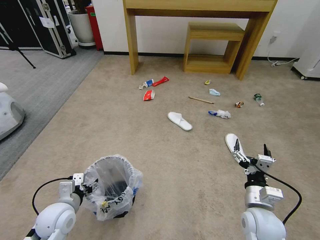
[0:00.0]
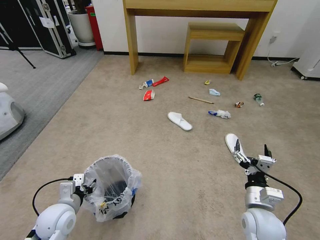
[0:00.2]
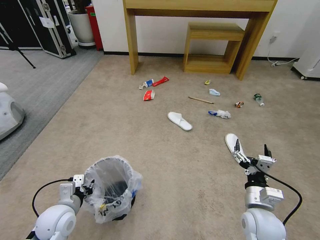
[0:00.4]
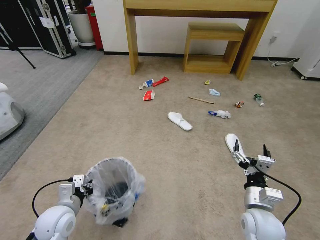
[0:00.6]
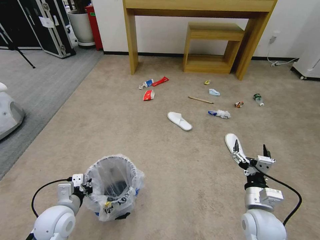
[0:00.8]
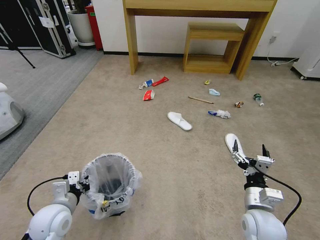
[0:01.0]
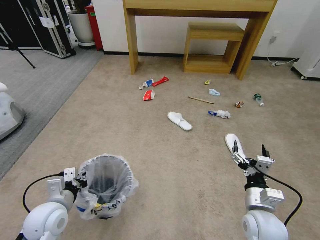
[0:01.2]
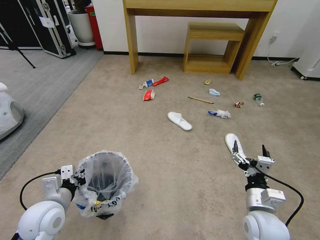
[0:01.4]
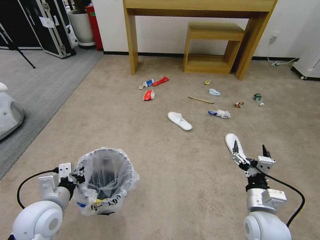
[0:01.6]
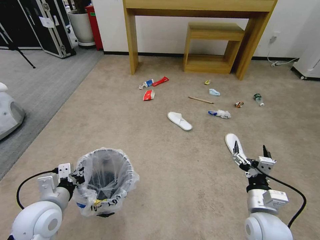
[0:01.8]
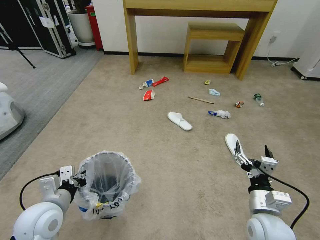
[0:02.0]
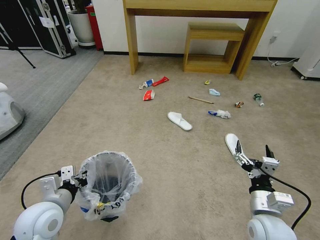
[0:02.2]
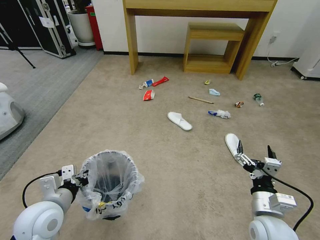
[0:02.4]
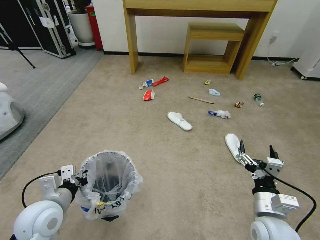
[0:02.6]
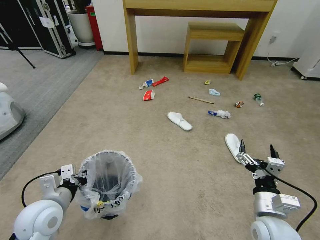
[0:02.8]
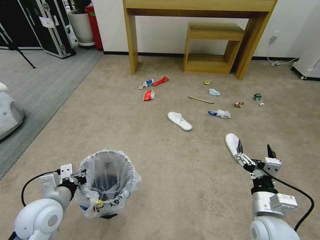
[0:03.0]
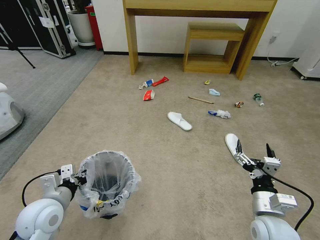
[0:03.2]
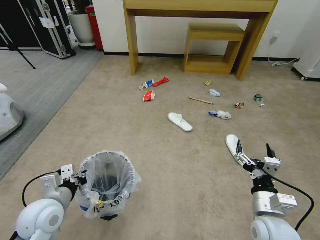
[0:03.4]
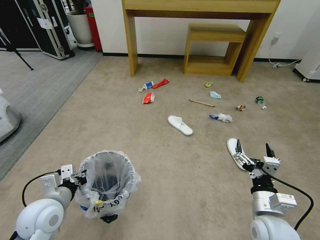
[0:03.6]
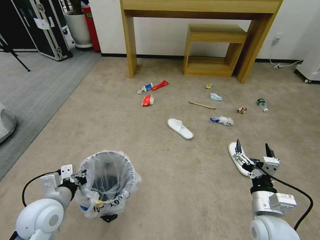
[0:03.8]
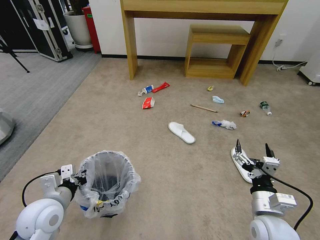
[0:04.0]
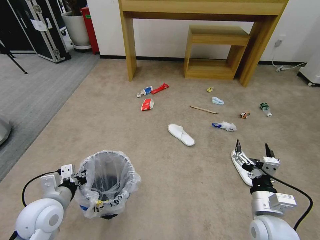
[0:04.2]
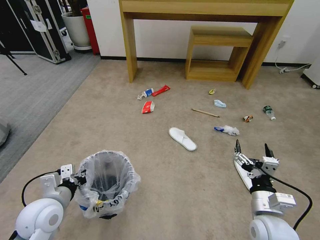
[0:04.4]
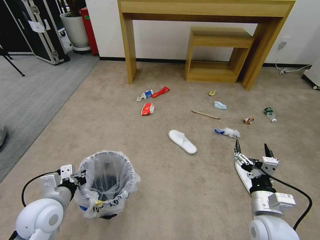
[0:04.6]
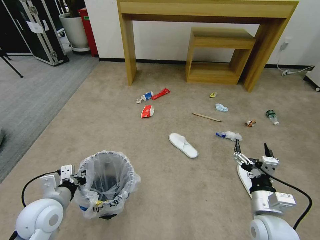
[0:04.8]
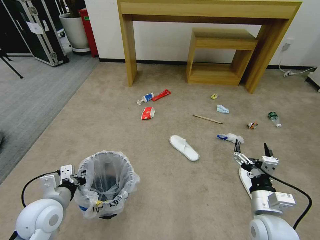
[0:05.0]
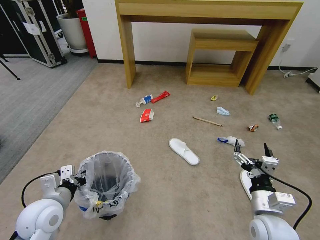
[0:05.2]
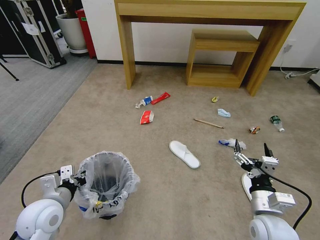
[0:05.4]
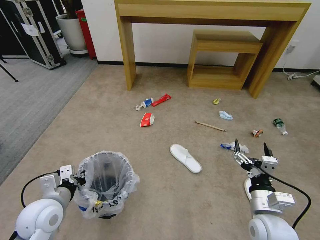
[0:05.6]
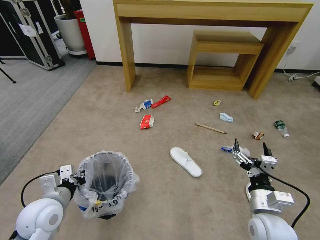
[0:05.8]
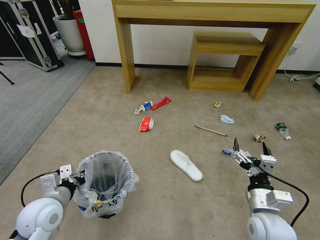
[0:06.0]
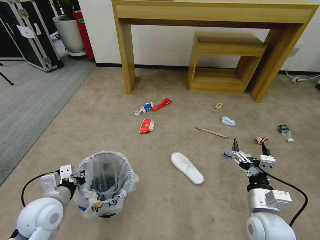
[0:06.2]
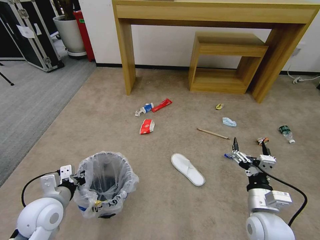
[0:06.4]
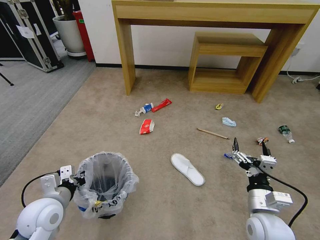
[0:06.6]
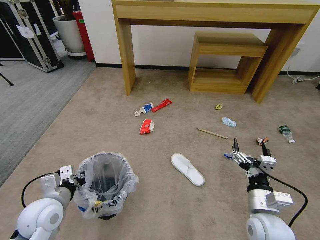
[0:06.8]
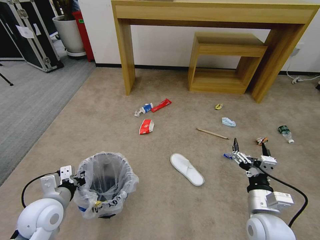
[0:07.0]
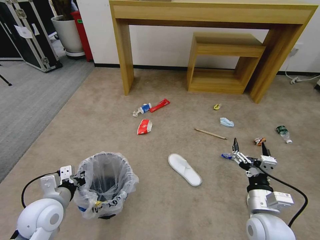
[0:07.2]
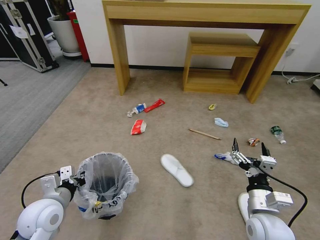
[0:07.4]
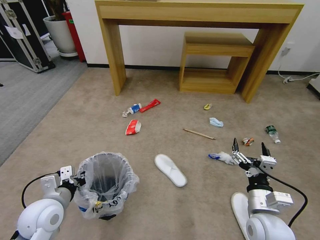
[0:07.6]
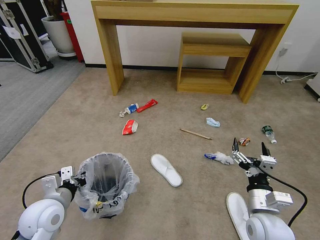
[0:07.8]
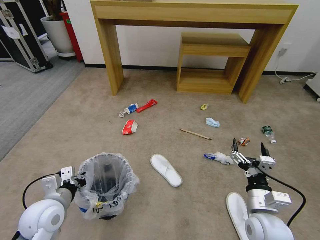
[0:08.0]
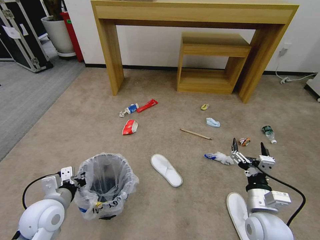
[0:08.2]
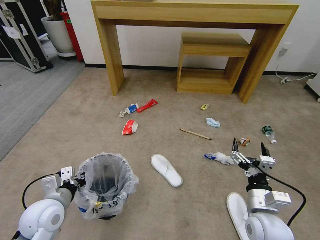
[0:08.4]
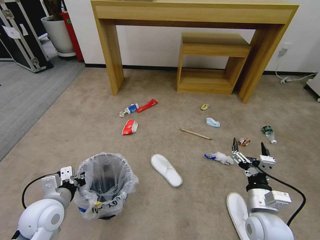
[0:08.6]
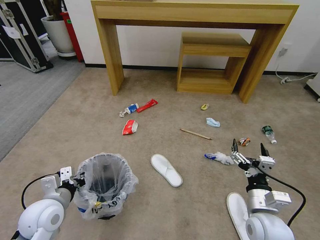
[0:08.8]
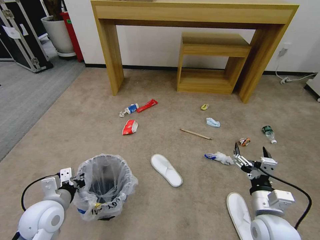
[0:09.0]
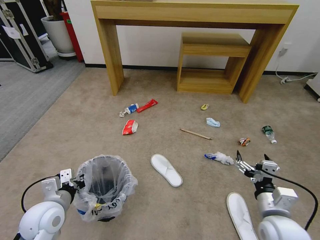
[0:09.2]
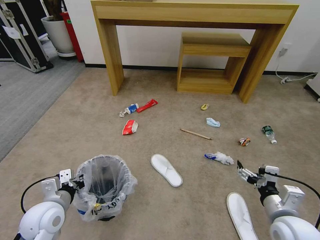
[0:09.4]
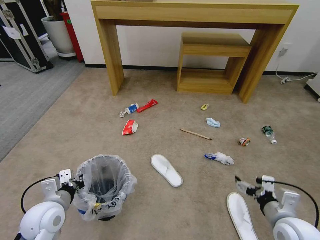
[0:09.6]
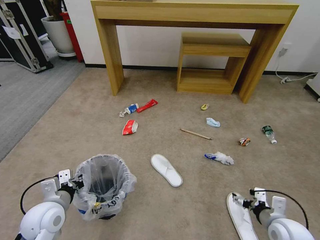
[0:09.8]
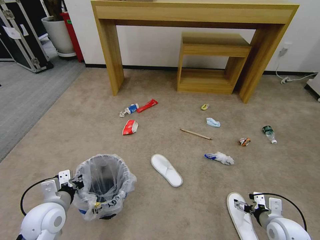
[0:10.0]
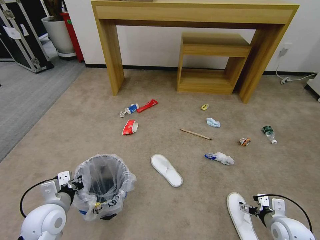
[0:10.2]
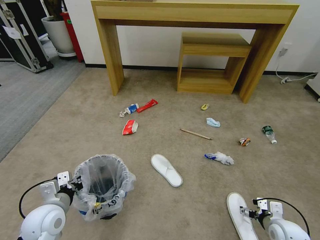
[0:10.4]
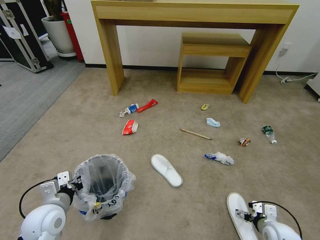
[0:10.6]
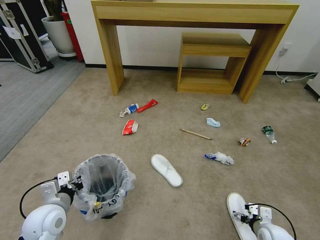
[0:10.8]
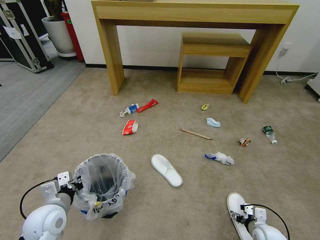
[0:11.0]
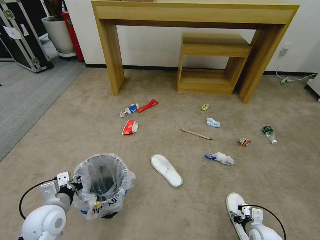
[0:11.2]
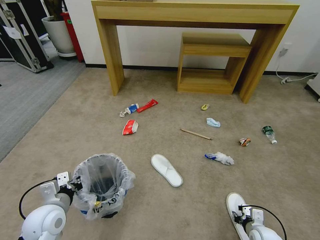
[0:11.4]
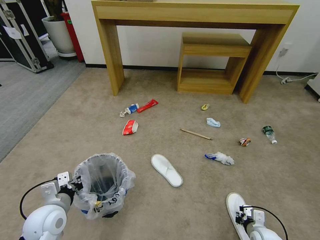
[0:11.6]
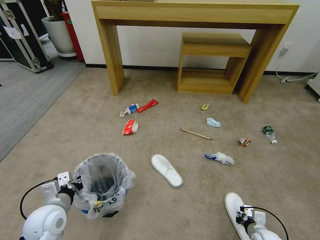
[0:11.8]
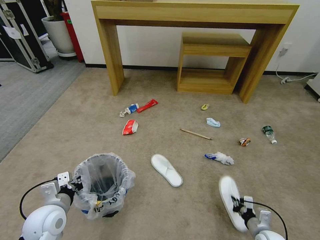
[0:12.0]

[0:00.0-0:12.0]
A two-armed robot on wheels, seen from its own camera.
Task of the whole recording: Pick up the trash bin and place the garbage on the floor into it.
0:00.0 to 0:01.6: The left gripper goes some 5 cm upward, and closes its fingers.
0:01.6 to 0:03.0: There are only small adjustments of the grippers.
0:07.6 to 0:09.0: The grippers move only a little.
0:09.0 to 0:10.4: The right gripper is displaced to the right and downward by approximately 20 cm.
0:10.4 to 0:12.0: The right gripper travels downward by roughly 5 cm, and closes up.

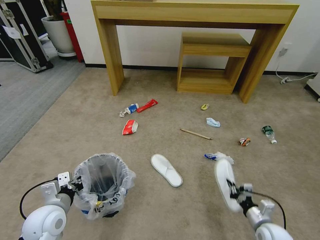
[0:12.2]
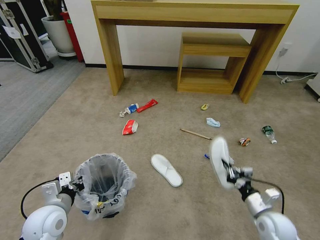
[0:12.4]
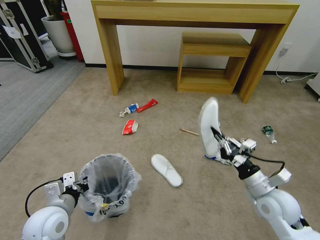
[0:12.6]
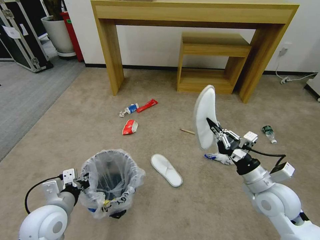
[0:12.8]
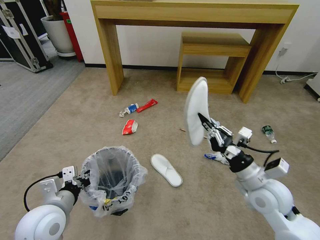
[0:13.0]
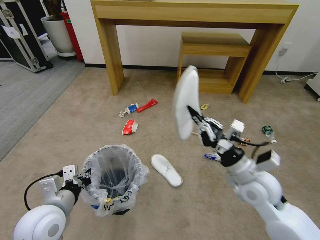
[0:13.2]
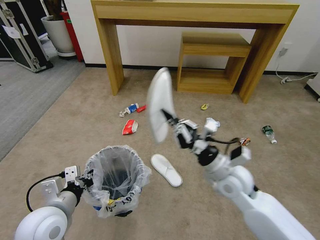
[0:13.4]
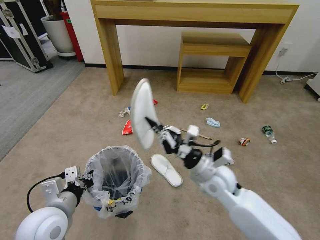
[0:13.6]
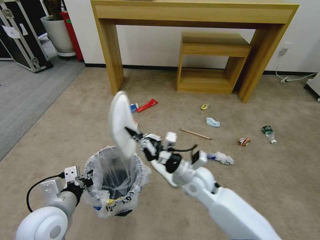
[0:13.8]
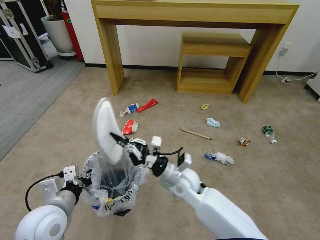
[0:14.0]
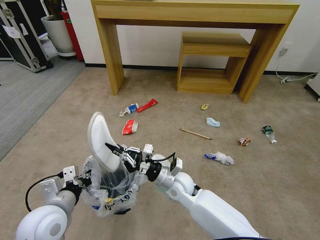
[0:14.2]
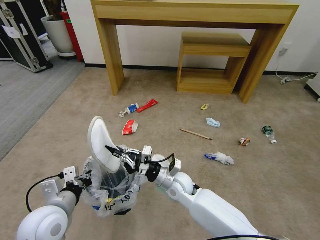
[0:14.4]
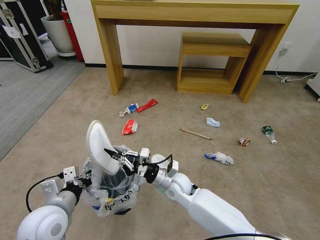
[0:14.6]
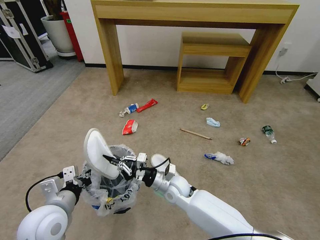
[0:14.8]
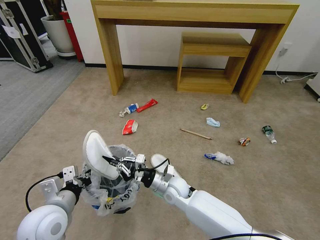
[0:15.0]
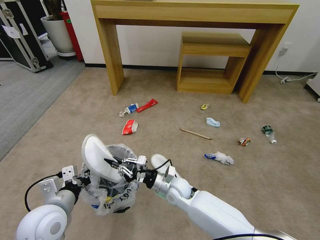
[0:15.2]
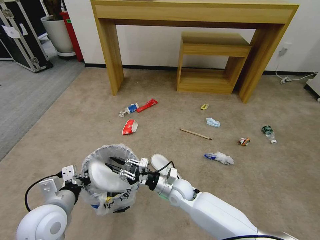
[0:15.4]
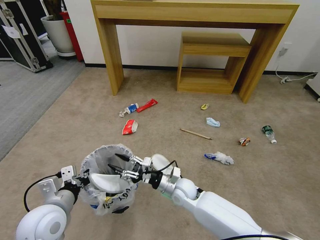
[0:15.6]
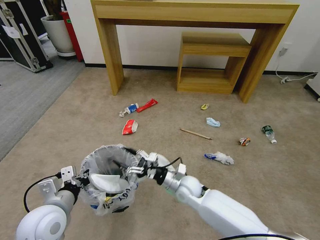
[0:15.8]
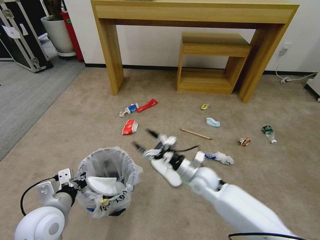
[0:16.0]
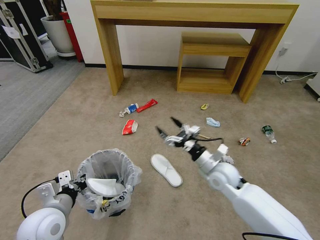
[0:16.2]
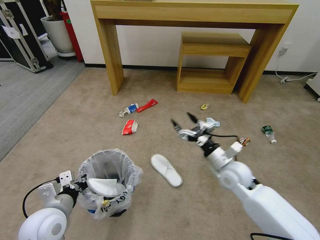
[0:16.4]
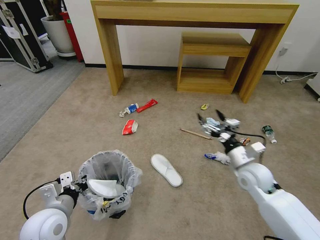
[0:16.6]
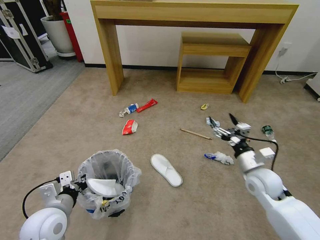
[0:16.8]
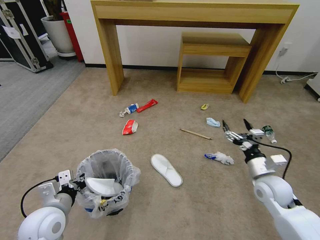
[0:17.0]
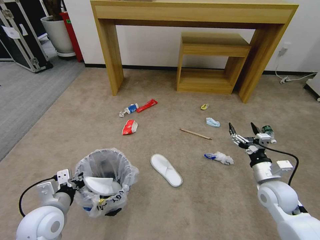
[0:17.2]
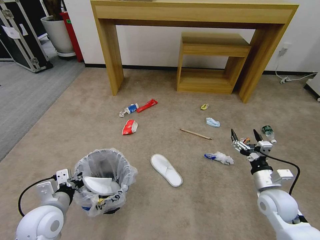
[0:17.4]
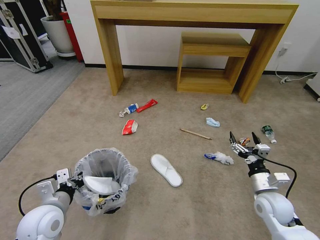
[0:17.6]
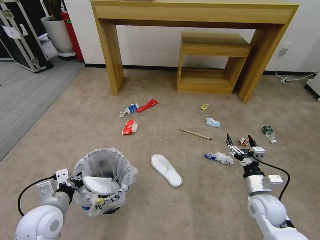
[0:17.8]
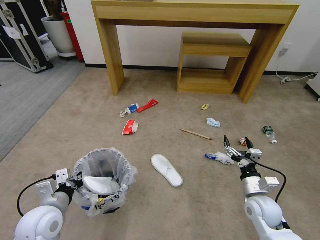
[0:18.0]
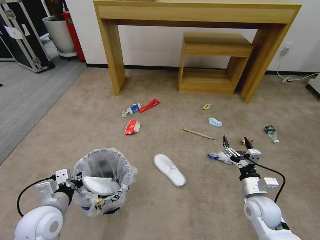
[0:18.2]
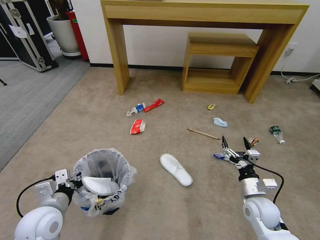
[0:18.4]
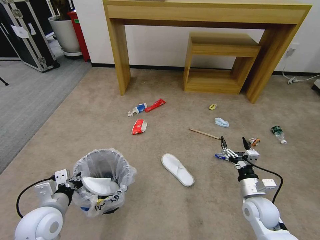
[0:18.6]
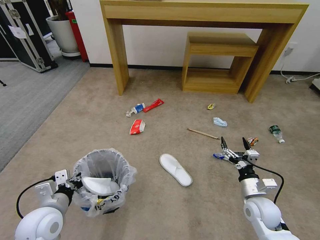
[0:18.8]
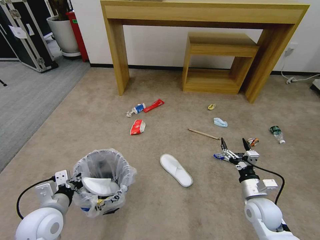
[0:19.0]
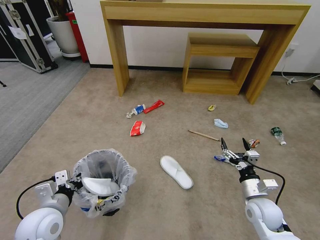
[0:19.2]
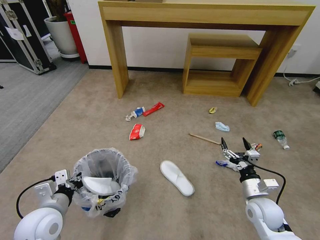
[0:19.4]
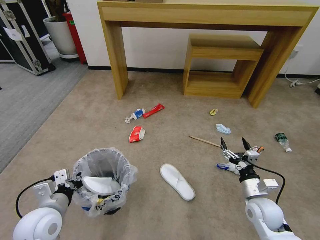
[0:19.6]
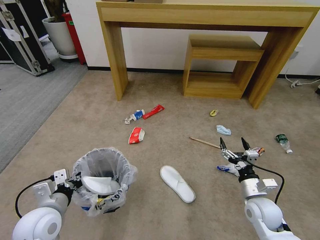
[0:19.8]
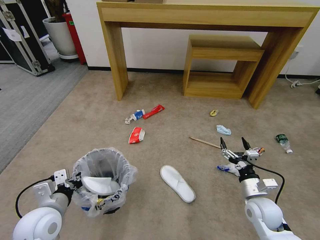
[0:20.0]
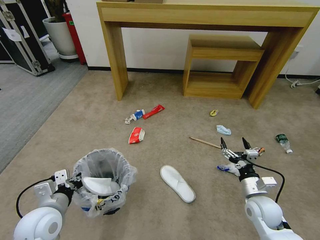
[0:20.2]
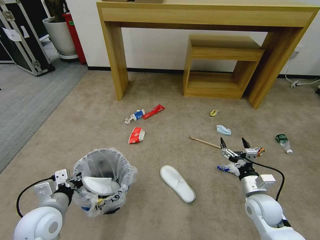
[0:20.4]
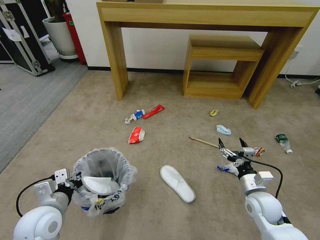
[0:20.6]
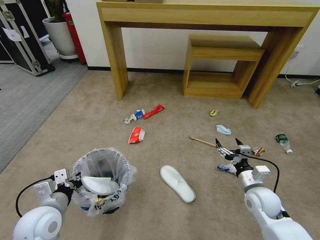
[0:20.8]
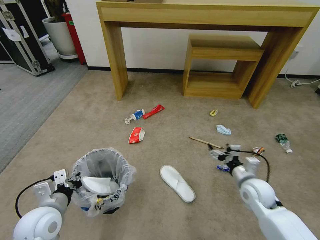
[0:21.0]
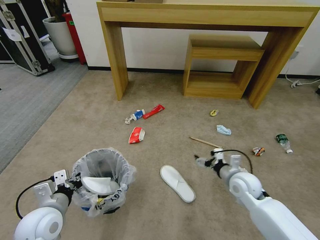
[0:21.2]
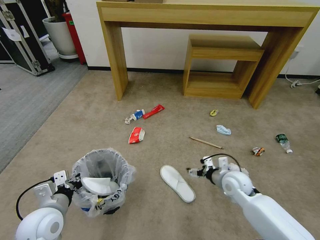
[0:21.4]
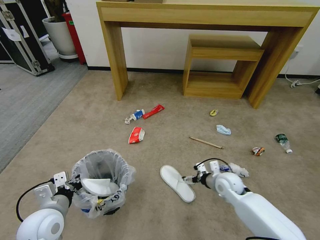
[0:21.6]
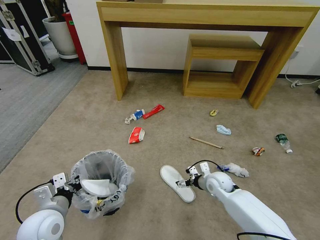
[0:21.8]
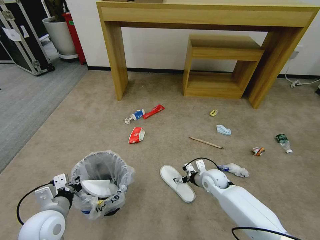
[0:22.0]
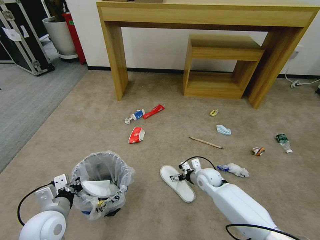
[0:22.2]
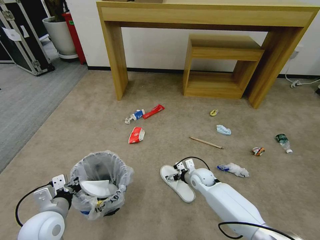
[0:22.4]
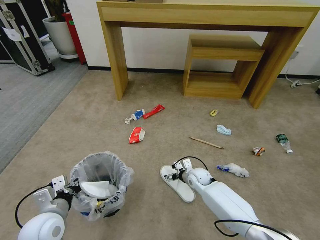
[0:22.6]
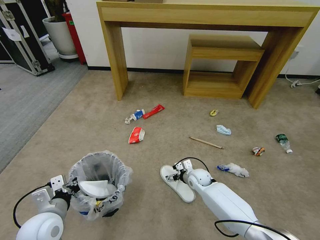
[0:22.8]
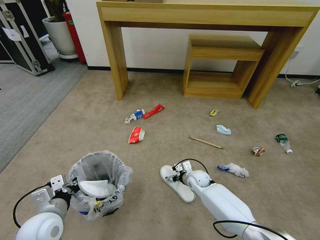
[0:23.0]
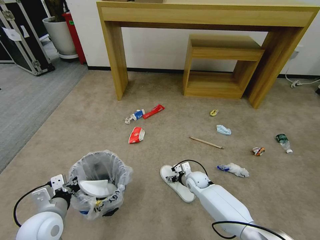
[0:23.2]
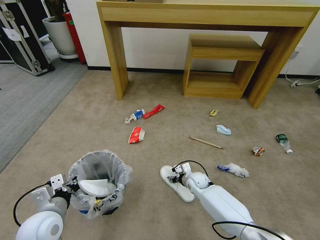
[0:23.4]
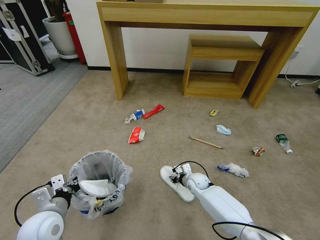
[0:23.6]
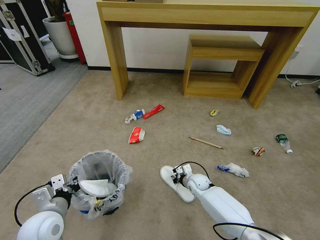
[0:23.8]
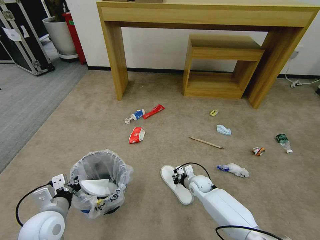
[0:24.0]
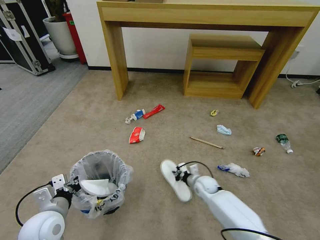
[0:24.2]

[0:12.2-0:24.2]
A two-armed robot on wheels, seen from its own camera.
Task of the whole recording: Pick up the trash bin and place the garbage on the floor into it.
0:12.2 to 0:13.8: The left gripper moves upward, about 5 cm. The right gripper heads to the left, upward and forward, covering some 30 cm.
0:13.8 to 0:15.2: The right gripper shifts some 10 cm downward and to the left.
0:15.2 to 0:16.6: The right gripper moves to the right and upward, about 25 cm, and opens up.
0:16.6 to 0:18.2: The right gripper shifts roughly 10 cm downward and backward.
0:18.2 to 0:19.8: Both grippers stay about where they are.
0:19.8 to 0:21.2: The right gripper goes about 5 cm forward.
0:21.2 to 0:22.6: The right gripper travels downward, to the left and forward by approximately 20 cm.
0:22.6 to 0:24.2: The right gripper closes.
